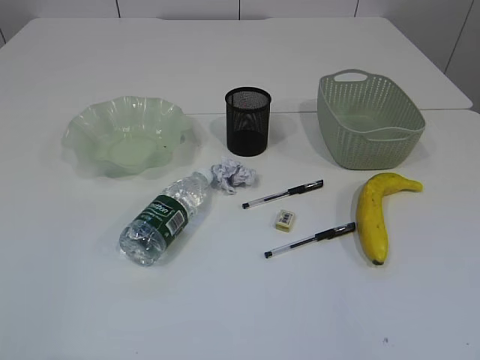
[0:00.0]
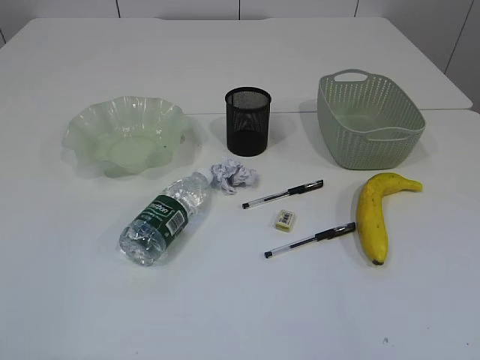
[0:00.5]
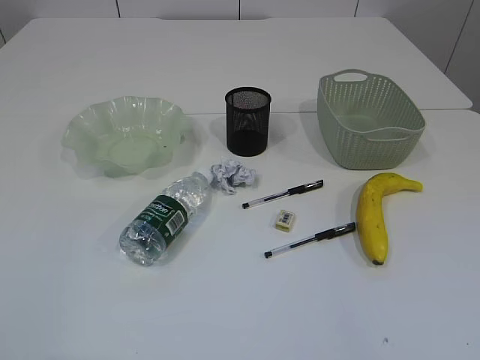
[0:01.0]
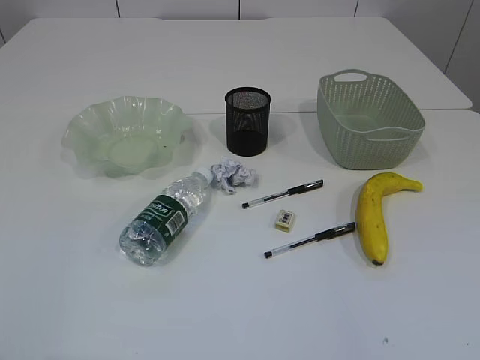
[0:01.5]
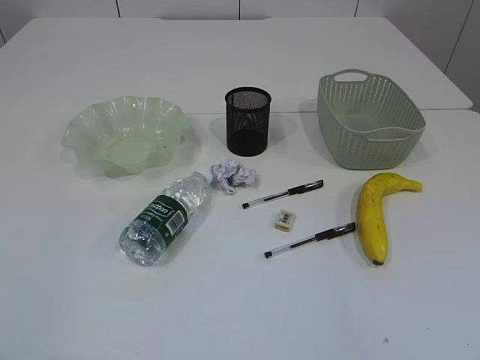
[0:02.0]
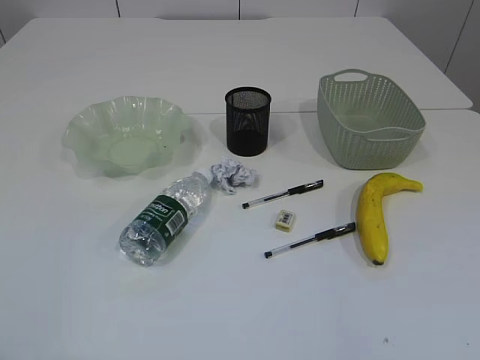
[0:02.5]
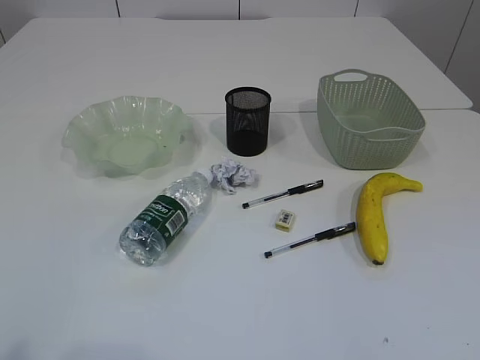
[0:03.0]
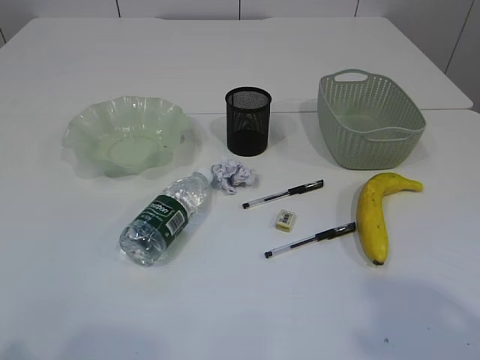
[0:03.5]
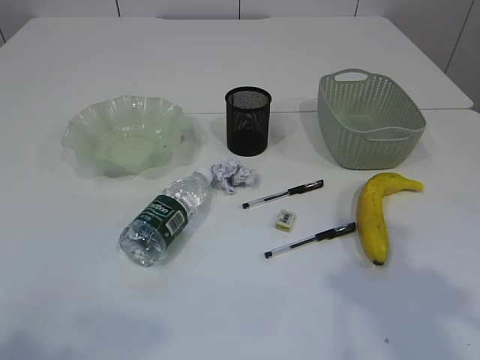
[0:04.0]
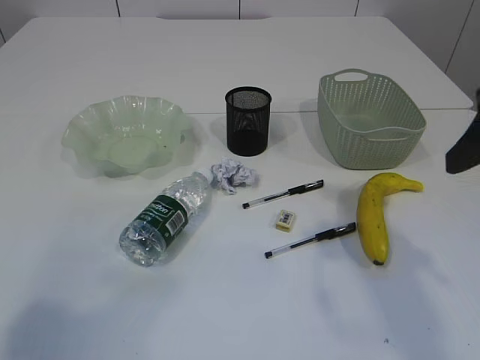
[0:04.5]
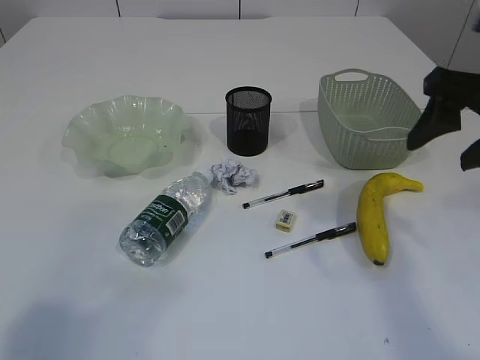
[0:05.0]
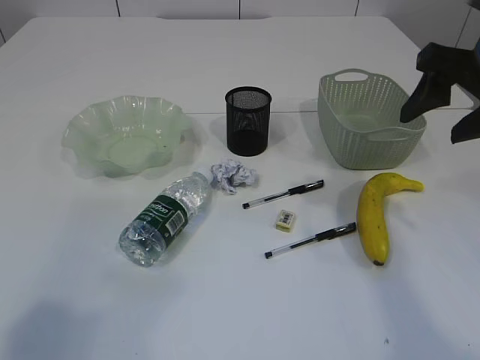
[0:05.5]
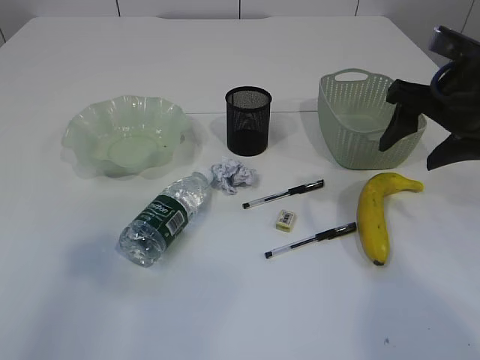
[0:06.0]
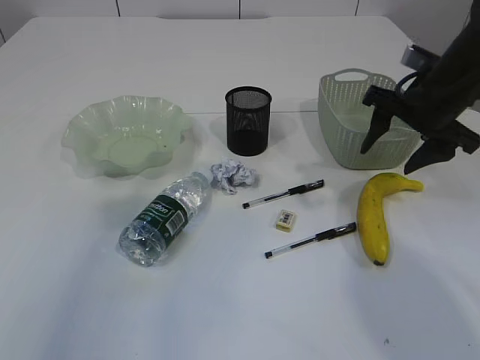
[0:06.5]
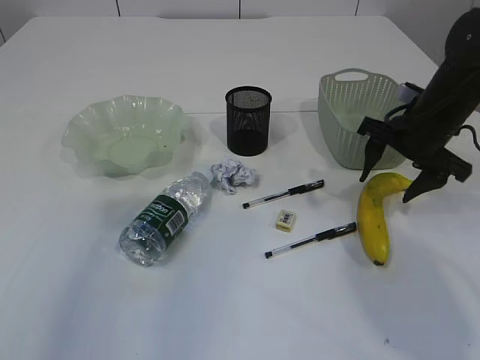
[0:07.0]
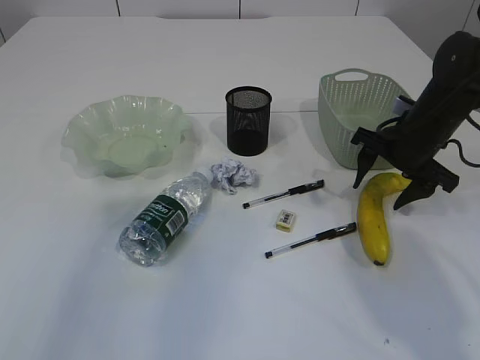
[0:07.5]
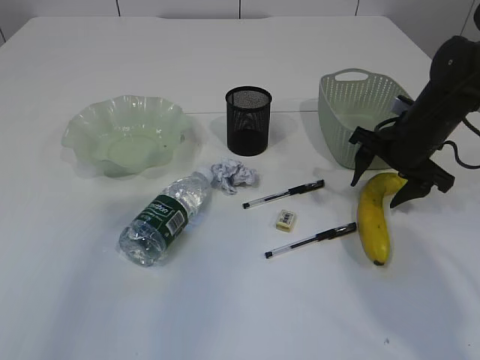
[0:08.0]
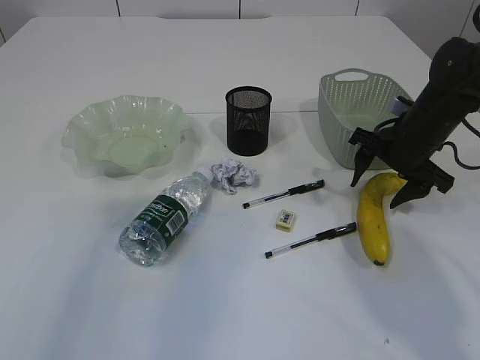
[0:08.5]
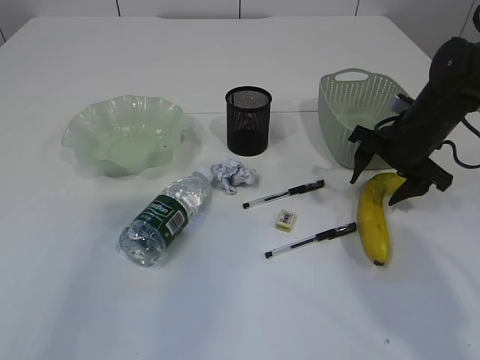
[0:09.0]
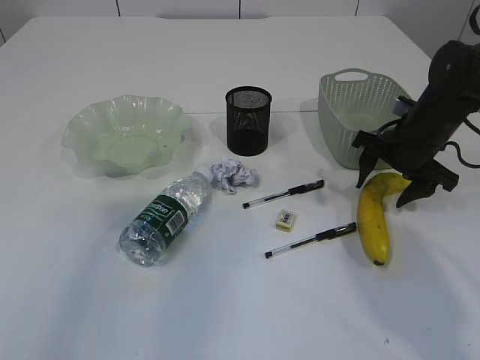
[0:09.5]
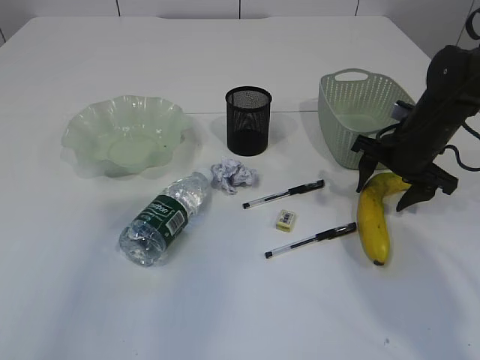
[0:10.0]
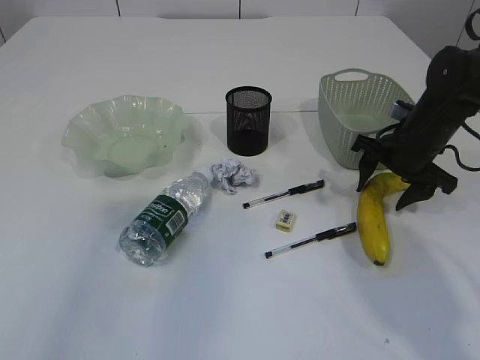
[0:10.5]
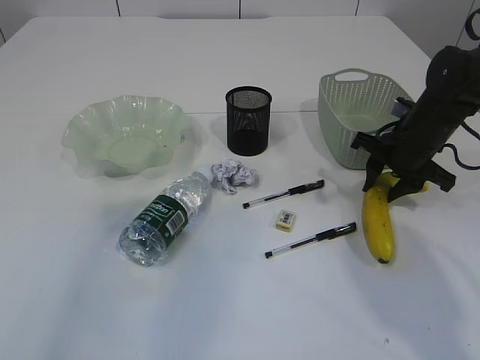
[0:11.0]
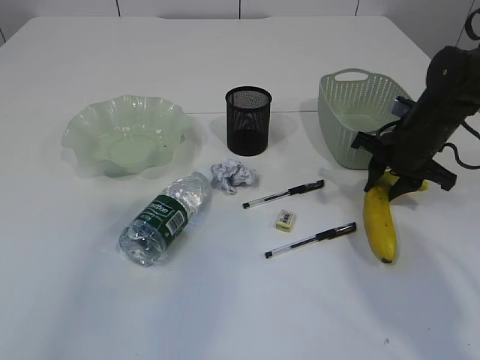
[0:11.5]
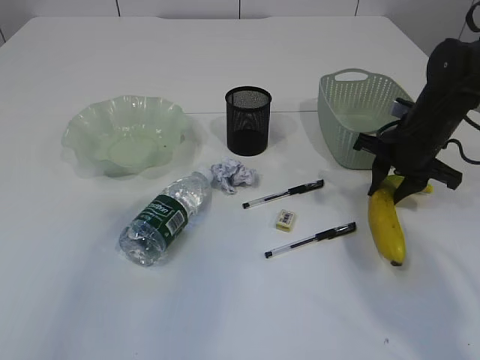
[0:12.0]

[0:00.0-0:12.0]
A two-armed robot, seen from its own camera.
0:02.0 to 0:04.0: The right gripper heads forward and upward, covering roughly 20 cm.
0:04.0 to 0:06.0: The left gripper heads forward, covering about 10 cm. The right gripper heads forward and downward, covering about 20 cm.
0:06.0 to 0:08.0: The right gripper travels downward and forward by approximately 15 cm.
0:08.0 to 0:10.0: The two grippers keep their place.
0:10.0 to 0:12.0: The right gripper closes.

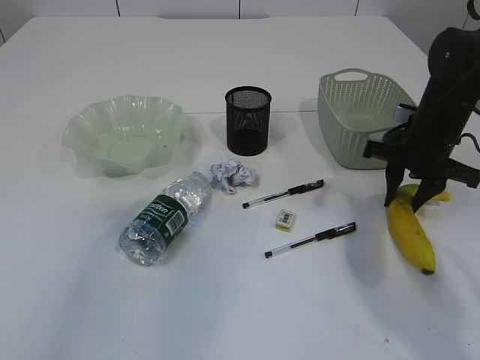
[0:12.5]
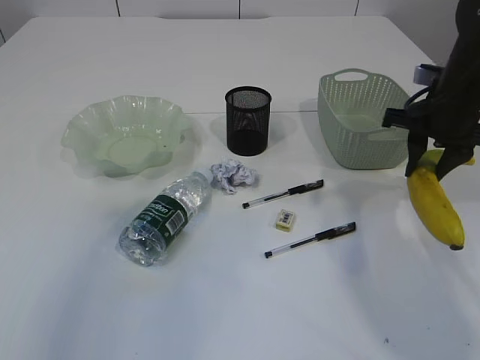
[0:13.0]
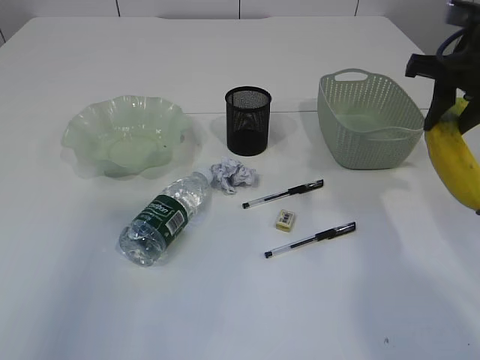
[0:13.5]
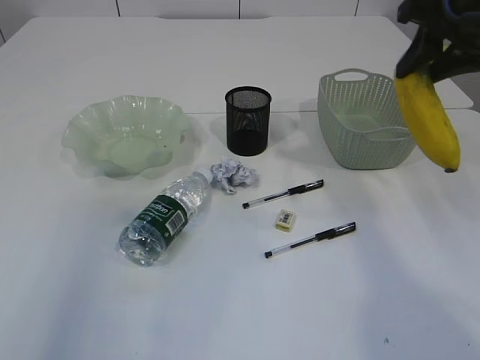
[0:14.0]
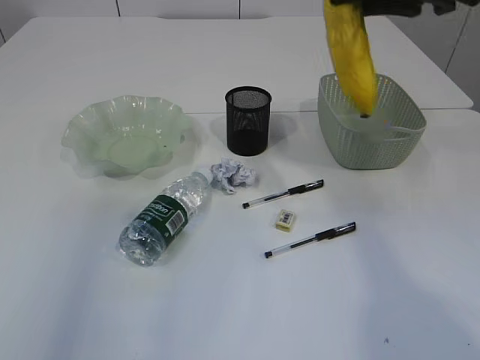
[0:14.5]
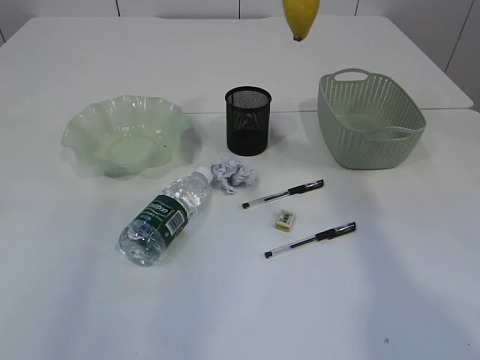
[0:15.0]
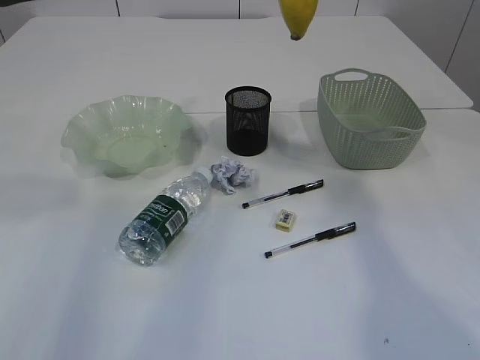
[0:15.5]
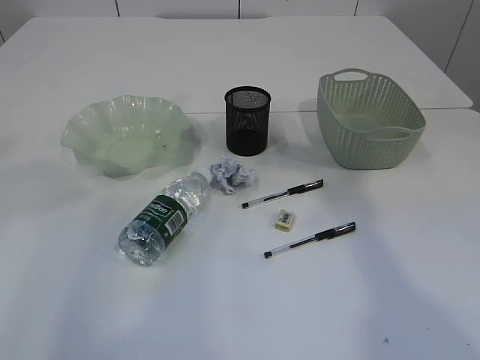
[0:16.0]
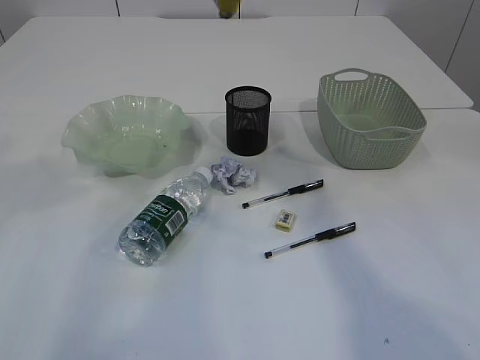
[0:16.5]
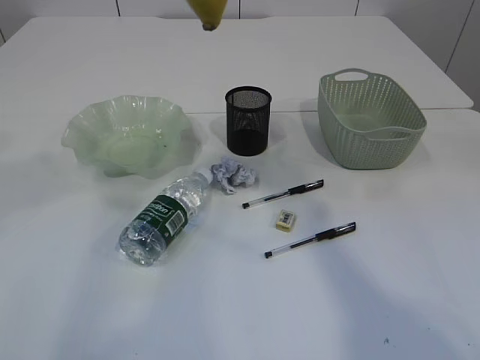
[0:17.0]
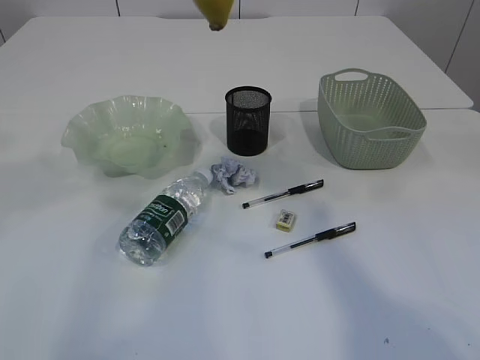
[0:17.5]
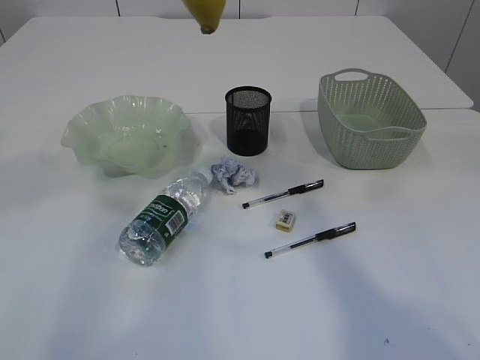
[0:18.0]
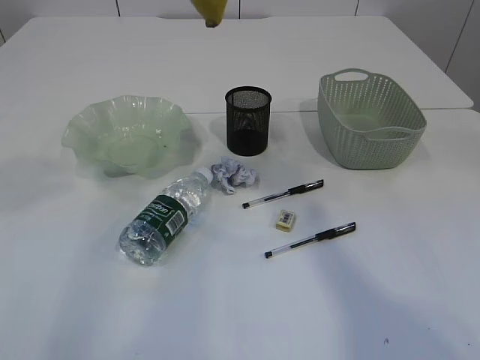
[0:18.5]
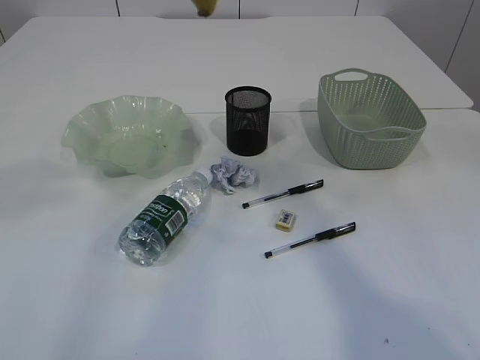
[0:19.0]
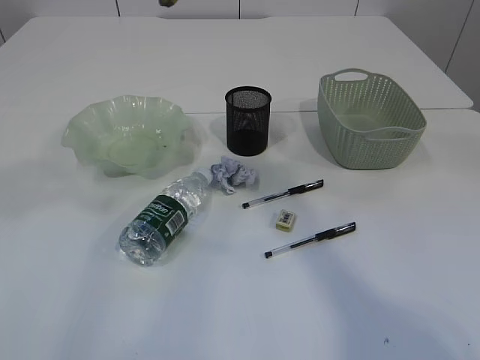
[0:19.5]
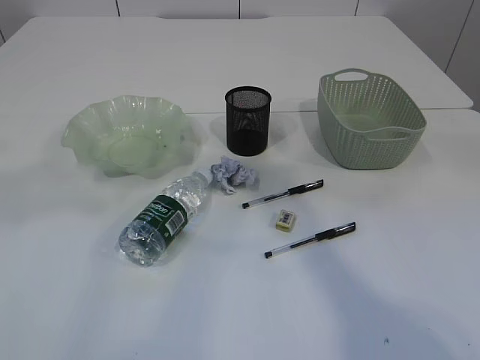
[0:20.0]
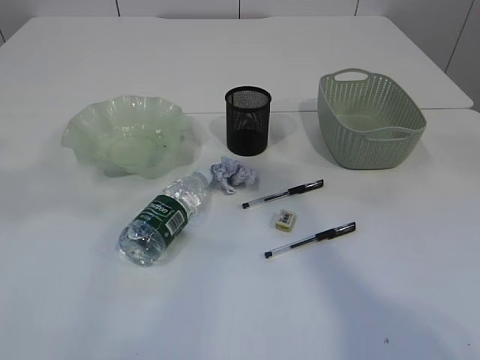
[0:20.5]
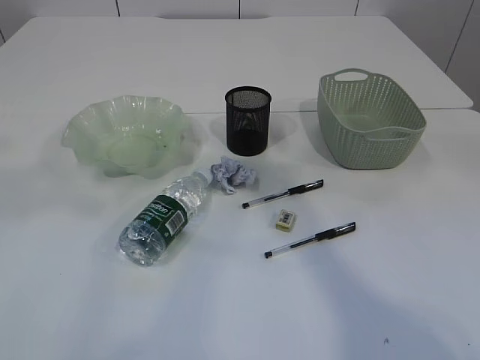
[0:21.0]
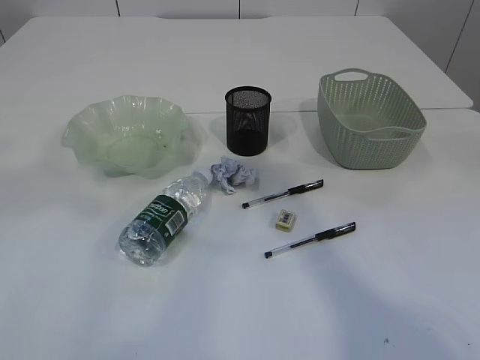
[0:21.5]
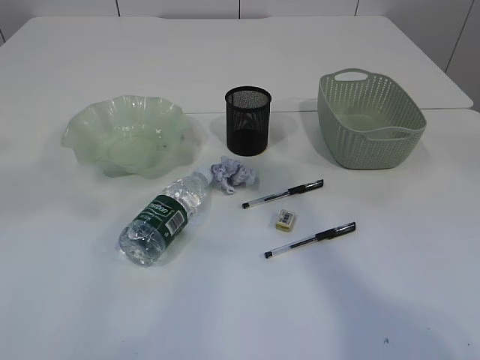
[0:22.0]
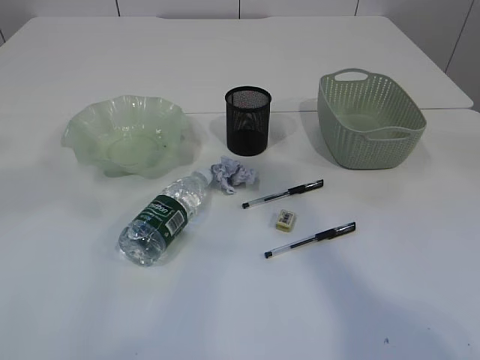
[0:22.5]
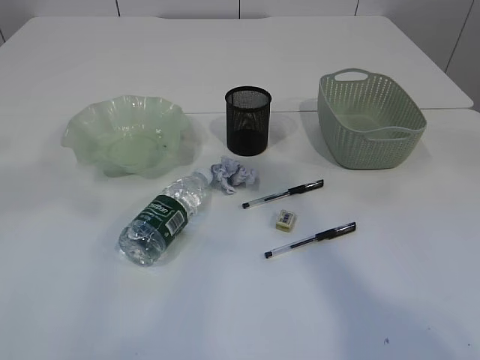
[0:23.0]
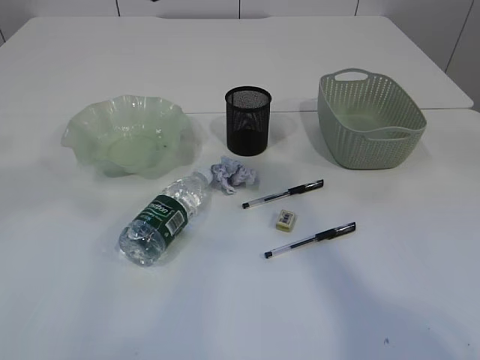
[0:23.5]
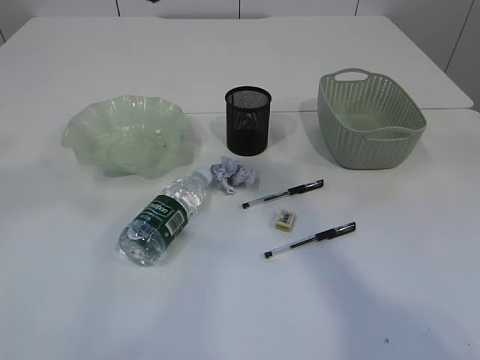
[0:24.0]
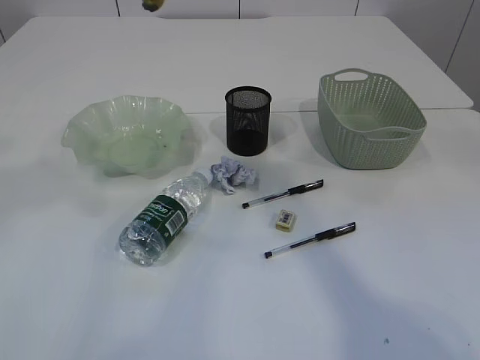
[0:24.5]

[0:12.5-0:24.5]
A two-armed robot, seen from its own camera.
0:12.5 to 0:14.5: The right gripper goes some 20 cm upward.
0:14.5 to 0:16.5: The right gripper travels to the left, upward and backward by roughly 15 cm, while the left gripper shifts some 15 cm forward and to the right.

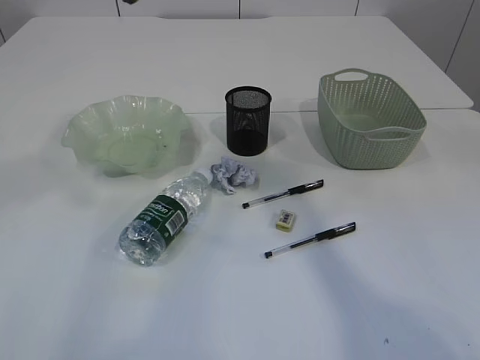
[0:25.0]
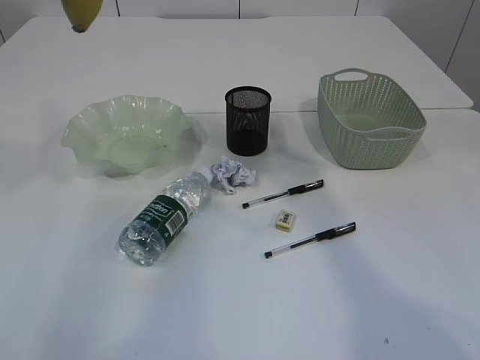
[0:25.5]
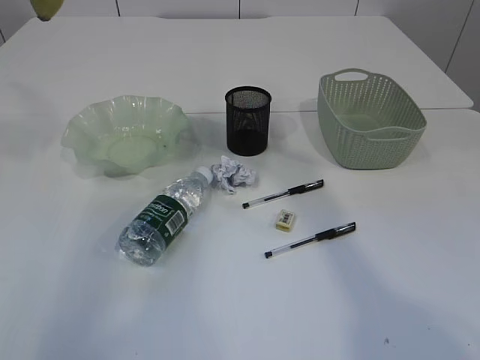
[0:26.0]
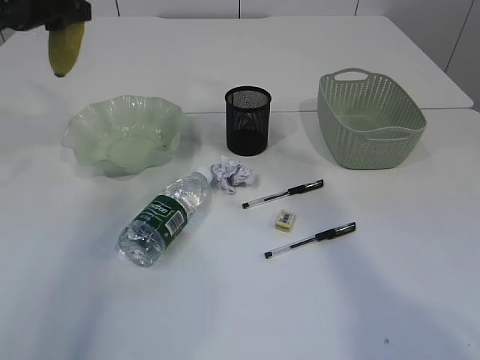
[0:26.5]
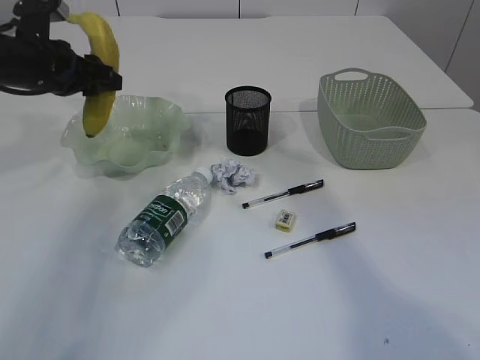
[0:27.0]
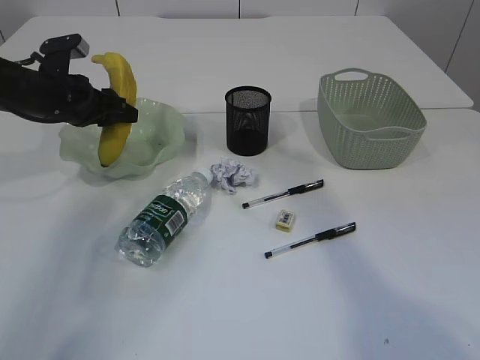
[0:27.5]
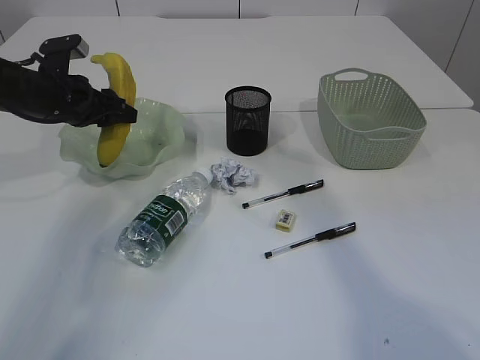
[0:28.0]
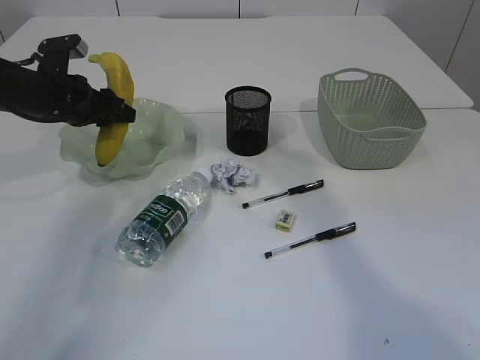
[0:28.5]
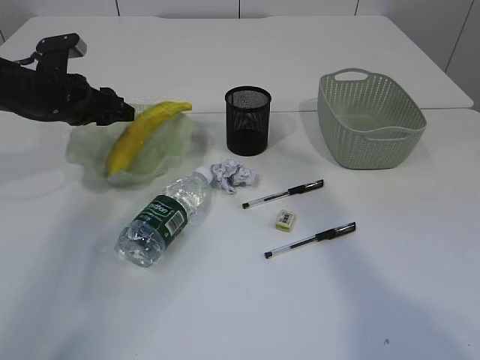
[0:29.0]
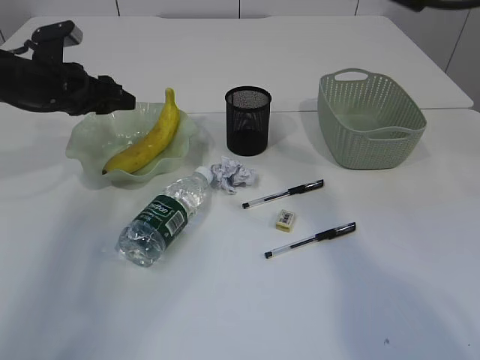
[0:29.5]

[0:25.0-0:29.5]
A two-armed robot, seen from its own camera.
0:25.0 to 0:27.0: The left gripper goes some 25 cm downward and forward. Meanwhile the right gripper shifts about 5 cm to the right.
0:27.0 to 0:29.5: There are only small adjustments of the grippers.
